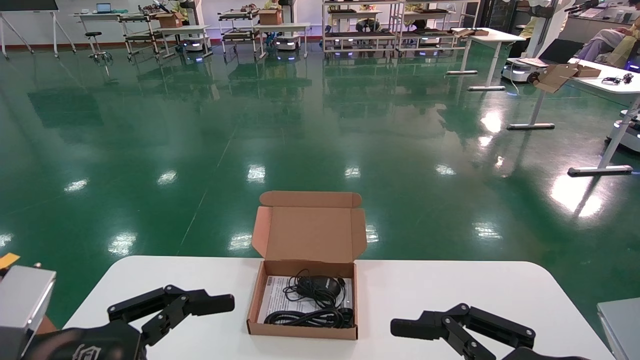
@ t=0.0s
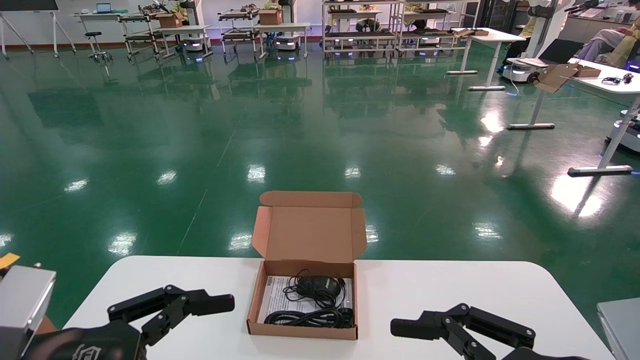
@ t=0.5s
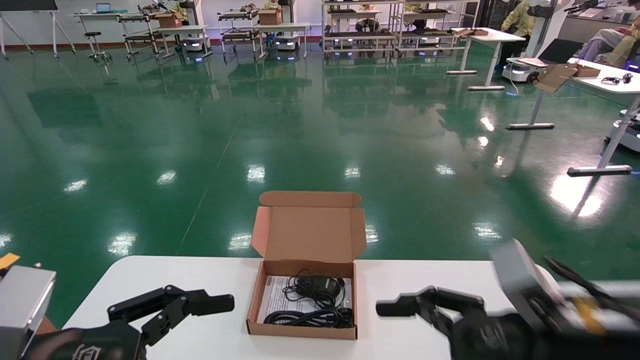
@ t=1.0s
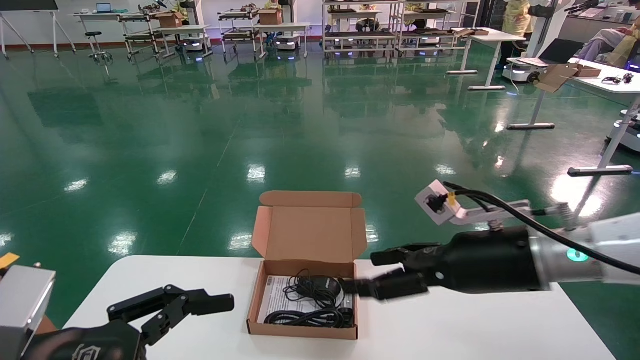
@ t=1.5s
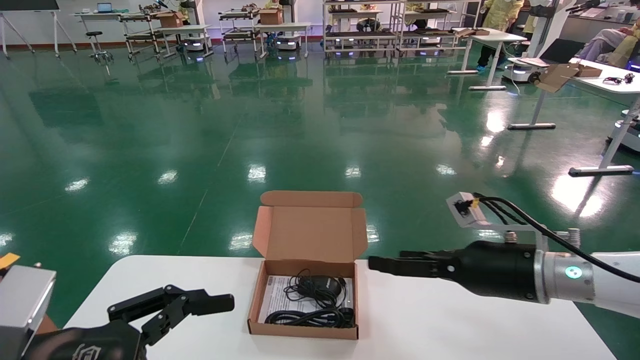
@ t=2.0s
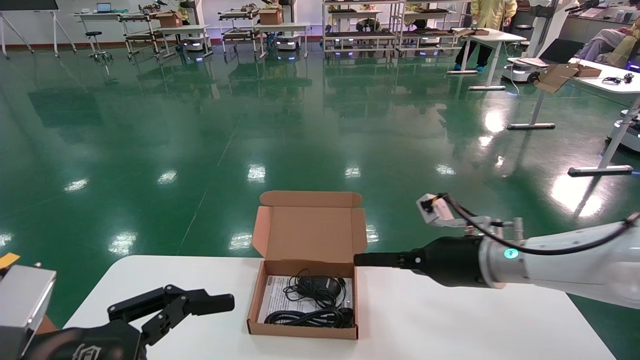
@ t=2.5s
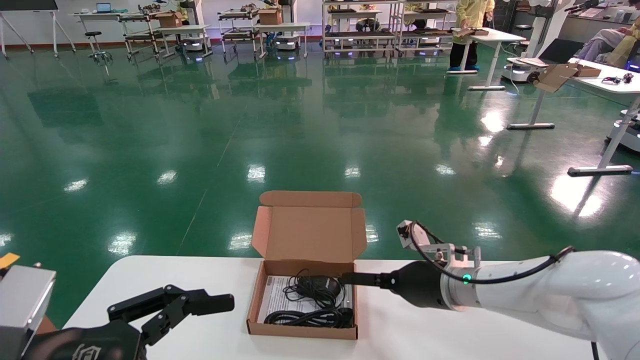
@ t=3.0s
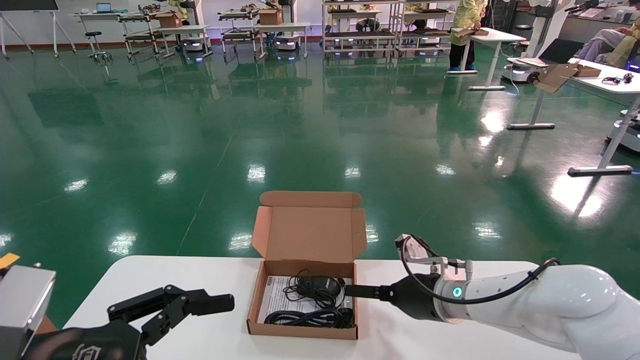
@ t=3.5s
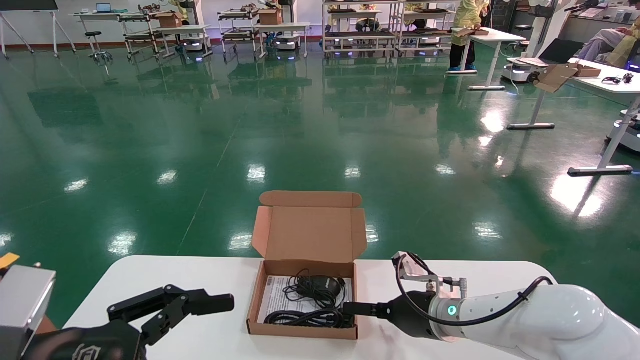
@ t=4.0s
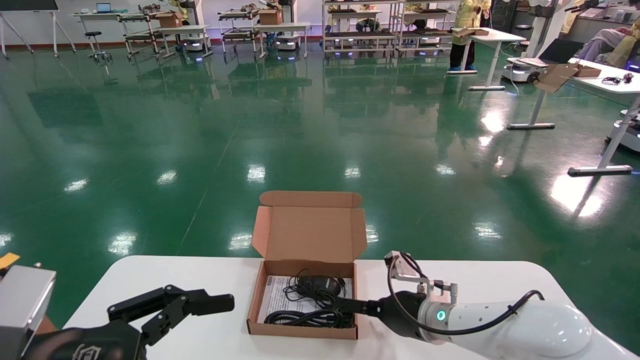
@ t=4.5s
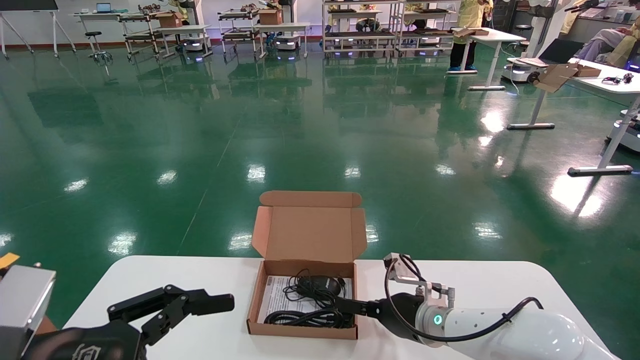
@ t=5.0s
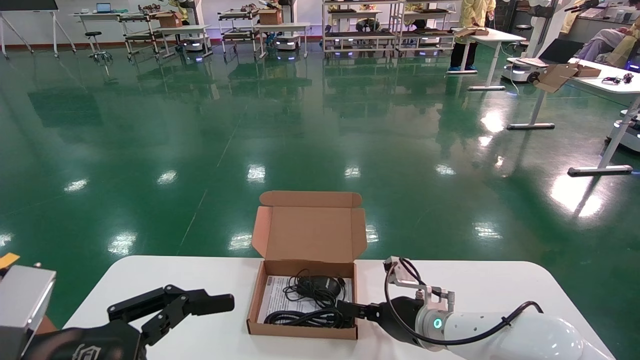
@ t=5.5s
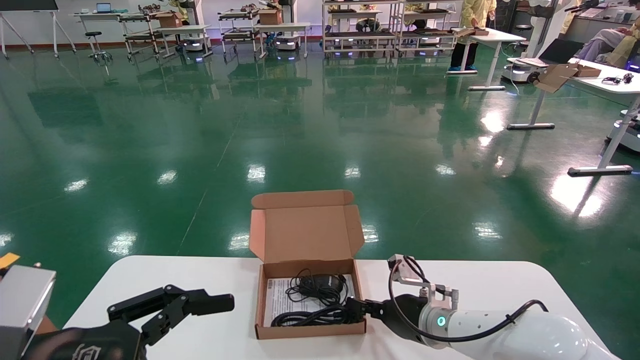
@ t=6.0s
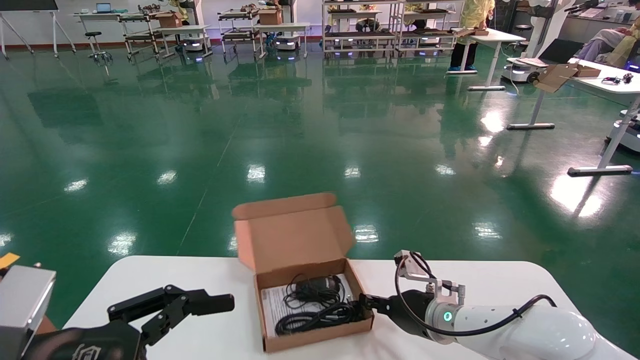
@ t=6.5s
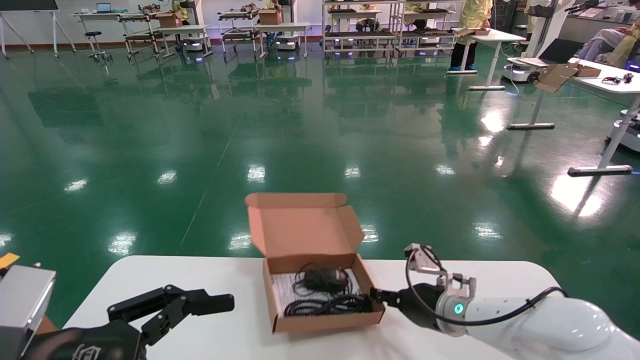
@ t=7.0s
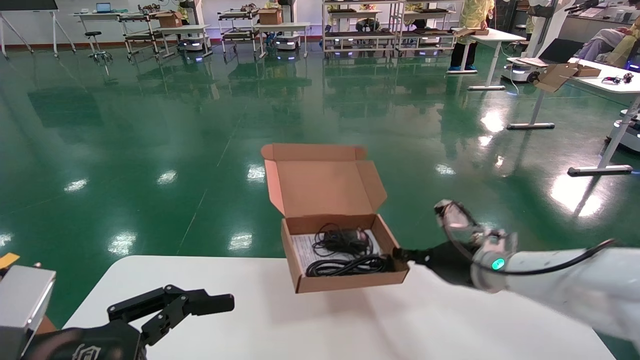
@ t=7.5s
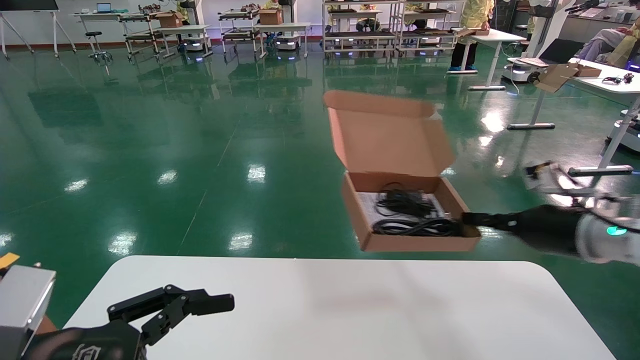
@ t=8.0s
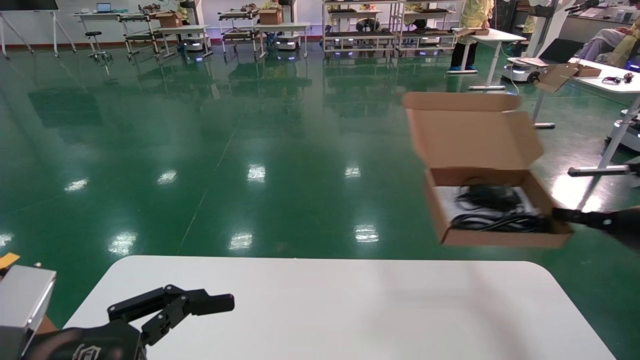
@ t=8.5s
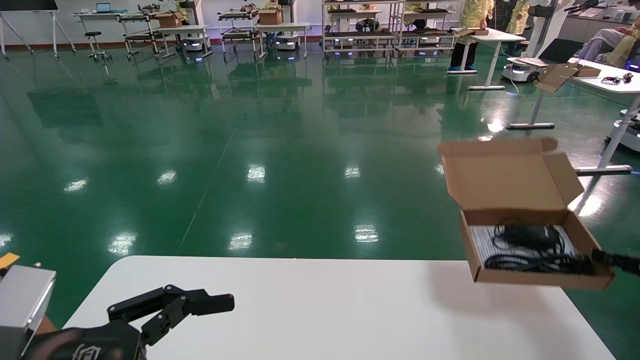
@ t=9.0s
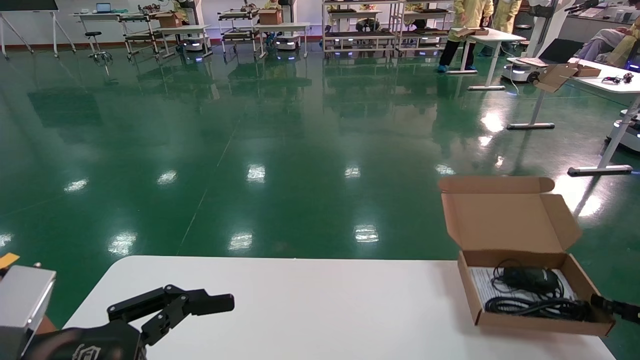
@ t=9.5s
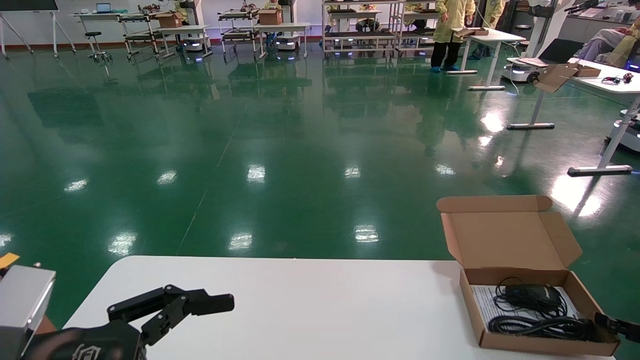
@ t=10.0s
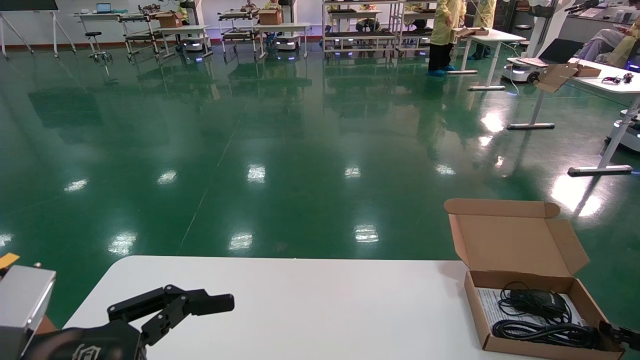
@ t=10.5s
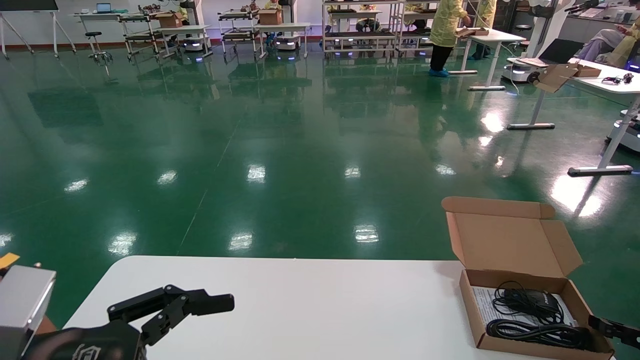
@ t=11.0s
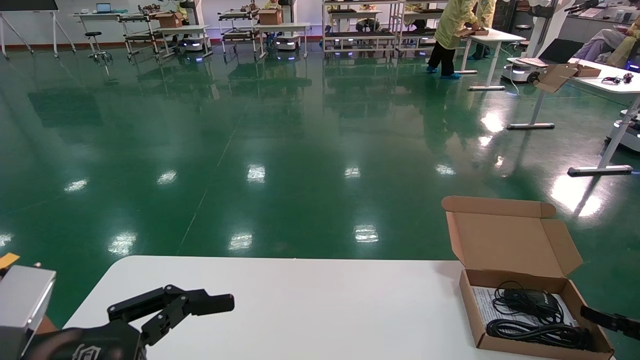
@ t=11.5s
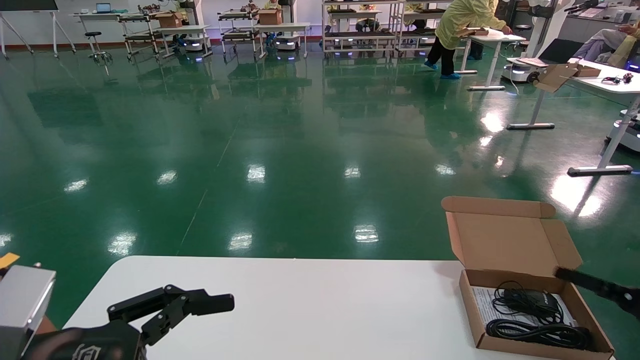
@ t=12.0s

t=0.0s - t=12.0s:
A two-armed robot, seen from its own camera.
Task of the whole recording: move the position of the storage box with accessories on the table.
Step, t=1.0s - t=6.5s: Grab and pick up the open mouse box from the accessory packaging area.
Step, t=7.0s - t=11.0s: Place the open mouse box onto the operation table.
t=0.0s - t=2.0s: The right gripper shifts roughly 20 cm forward.
t=2.0s - t=4.0s: The right gripper is displaced downward, to the left and forward by about 15 cm.
t=4.0s - t=6.0s: The right gripper closes.
t=6.0s - t=8.0s: The right gripper is displaced to the right and upward by about 25 cm, and closes.
t=8.0s - t=10.0s: The right gripper shifts approximately 20 cm to the right and downward.
t=10.0s - t=12.0s: The right gripper opens.

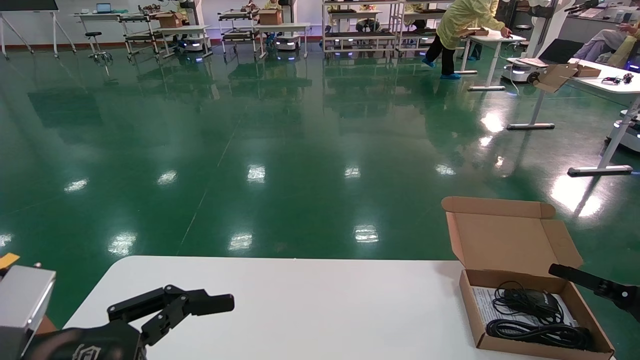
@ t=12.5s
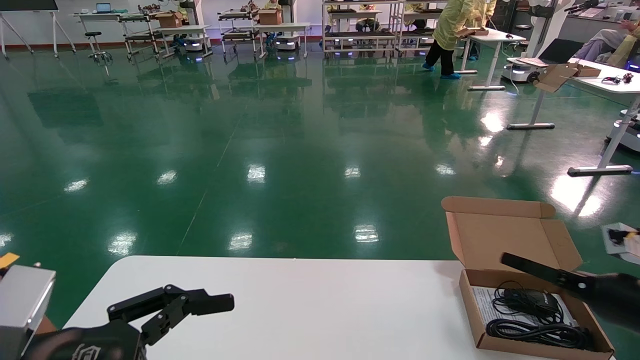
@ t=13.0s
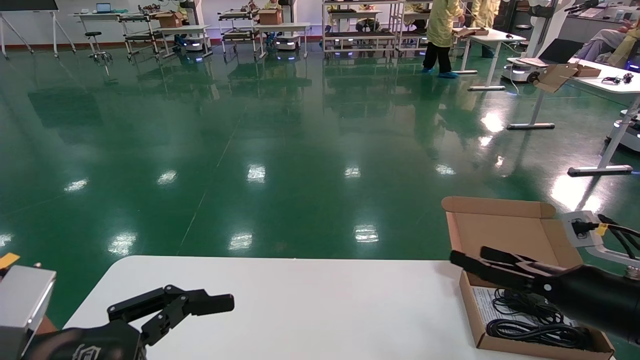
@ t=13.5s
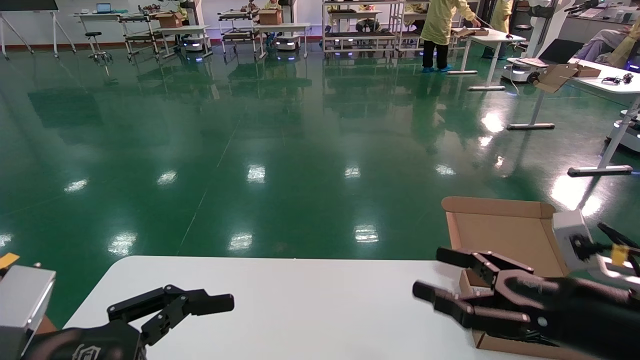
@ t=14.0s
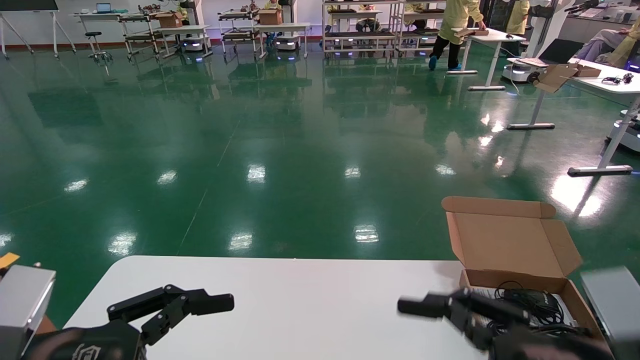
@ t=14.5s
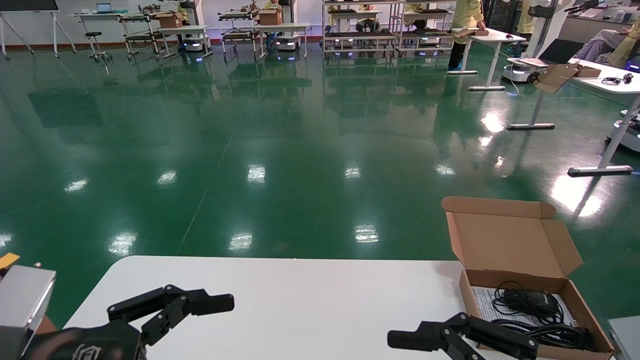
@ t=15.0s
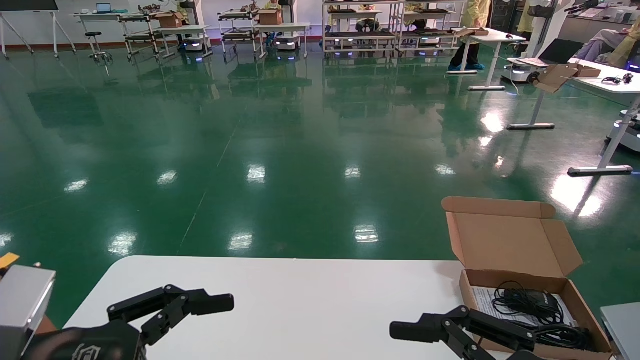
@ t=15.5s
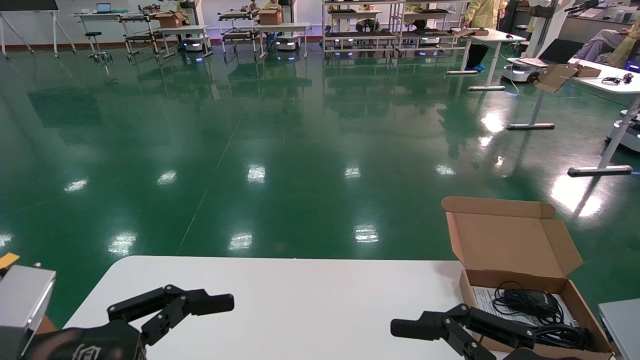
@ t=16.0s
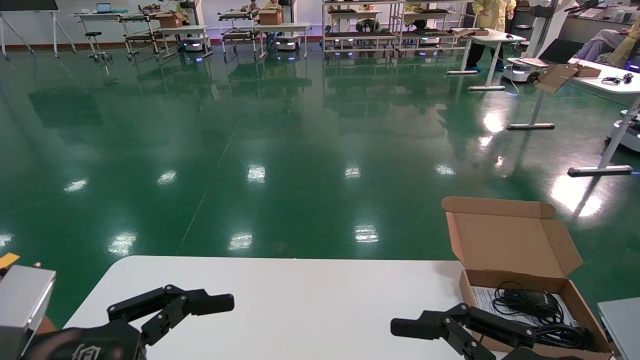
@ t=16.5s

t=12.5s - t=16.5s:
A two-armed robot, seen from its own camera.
Task of the whole recording: move the position of the storage box with accessories on the table.
t=12.5s - t=14.5s: The right gripper shifts some 30 cm to the left and backward.
t=14.5s - t=16.5s: The grippers stay close to where they were, moving slightly.
